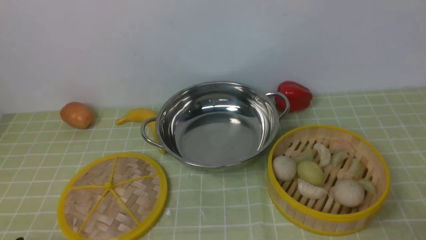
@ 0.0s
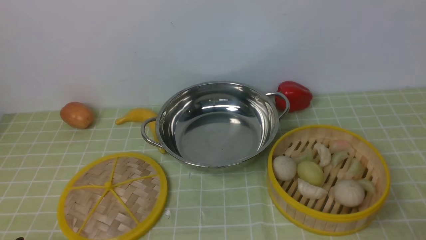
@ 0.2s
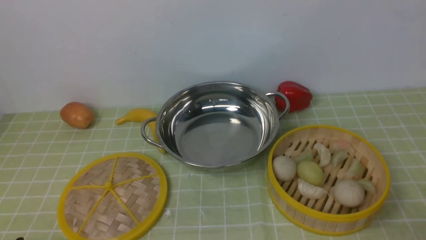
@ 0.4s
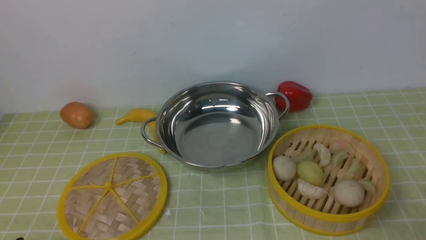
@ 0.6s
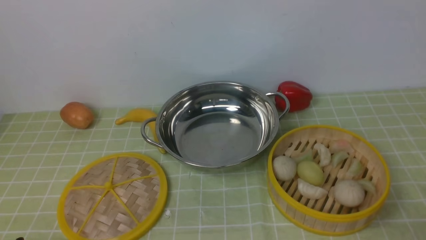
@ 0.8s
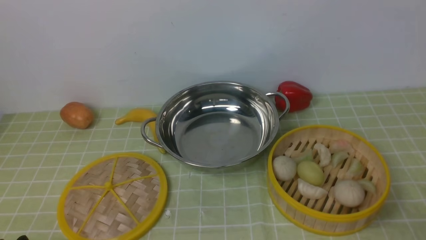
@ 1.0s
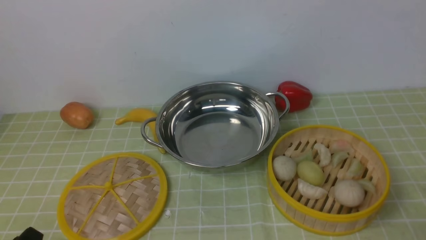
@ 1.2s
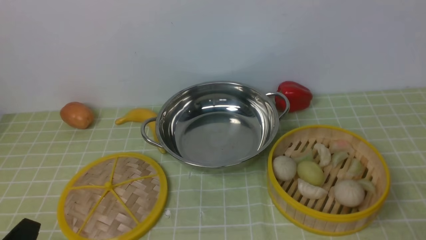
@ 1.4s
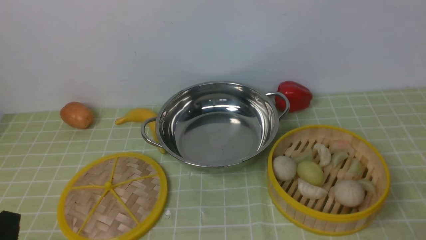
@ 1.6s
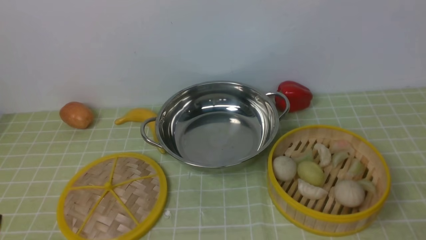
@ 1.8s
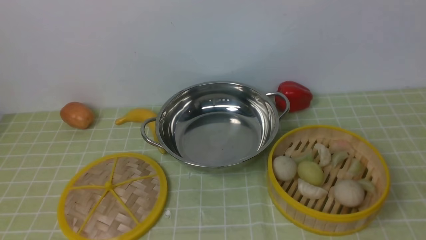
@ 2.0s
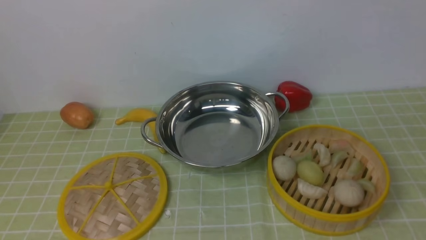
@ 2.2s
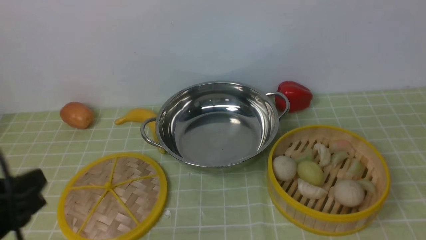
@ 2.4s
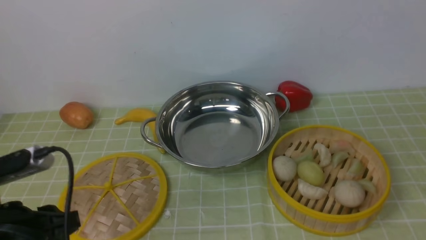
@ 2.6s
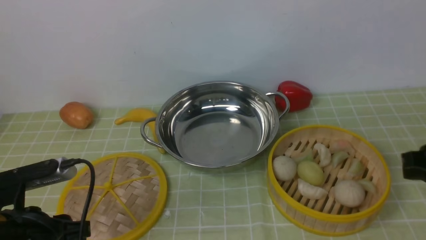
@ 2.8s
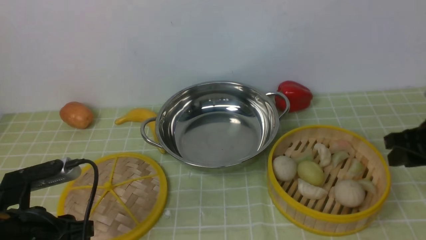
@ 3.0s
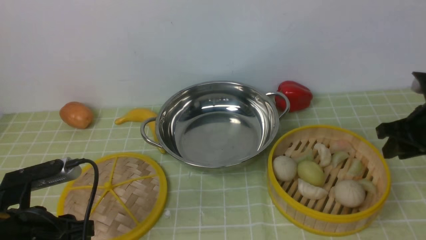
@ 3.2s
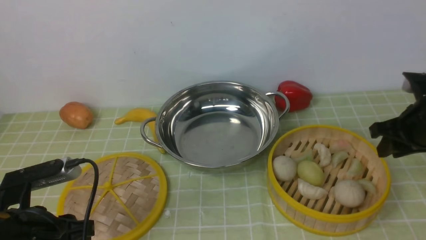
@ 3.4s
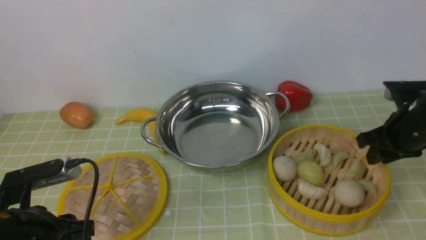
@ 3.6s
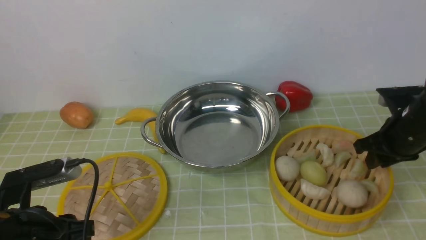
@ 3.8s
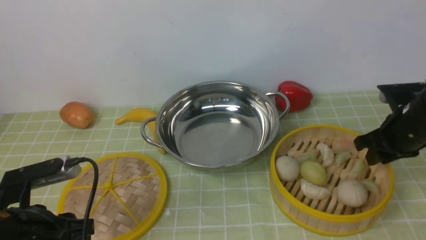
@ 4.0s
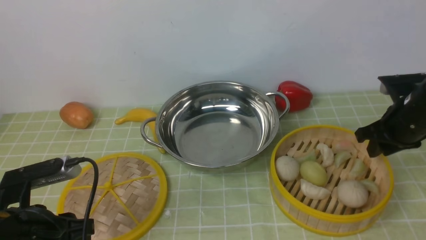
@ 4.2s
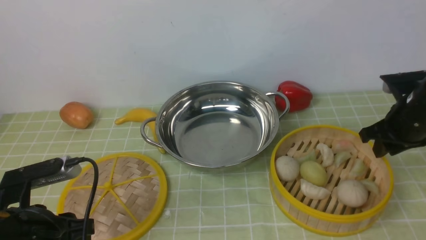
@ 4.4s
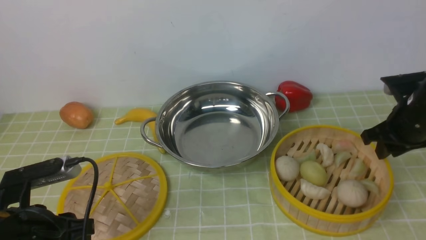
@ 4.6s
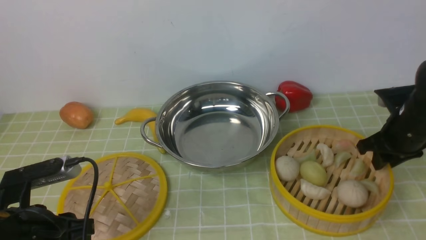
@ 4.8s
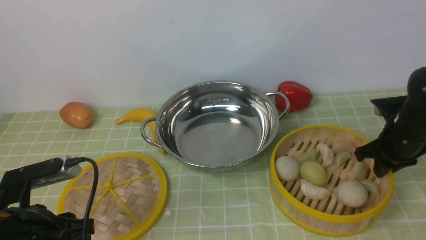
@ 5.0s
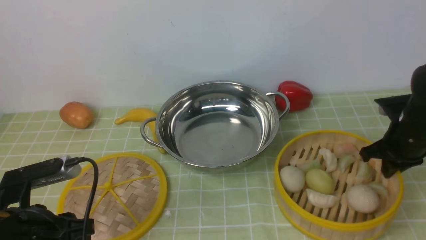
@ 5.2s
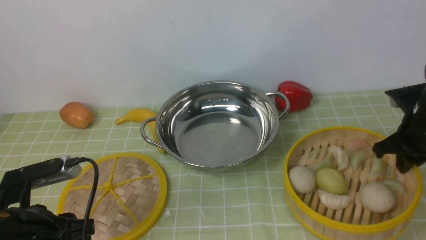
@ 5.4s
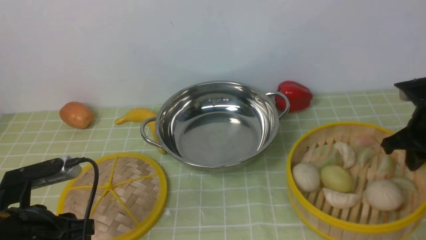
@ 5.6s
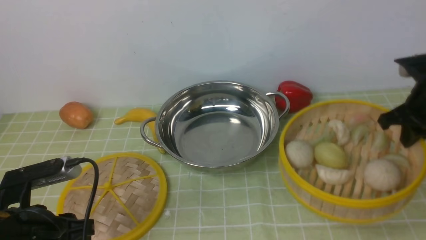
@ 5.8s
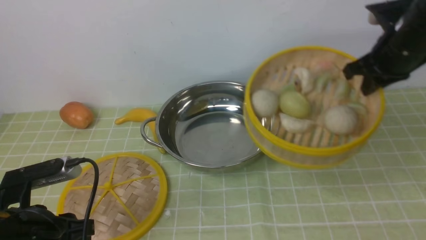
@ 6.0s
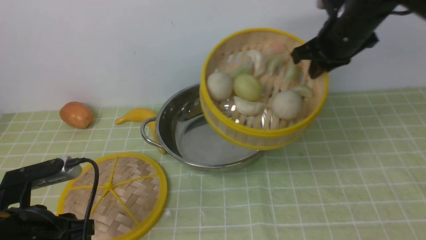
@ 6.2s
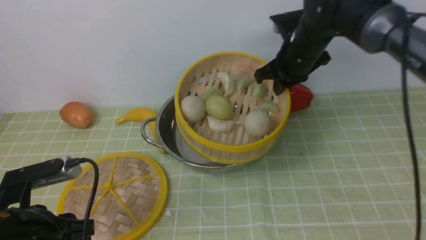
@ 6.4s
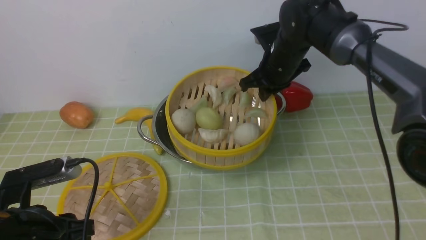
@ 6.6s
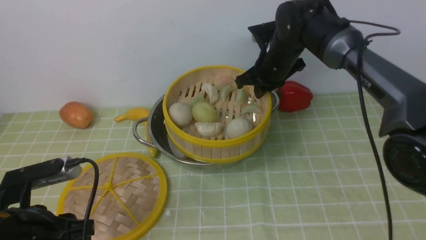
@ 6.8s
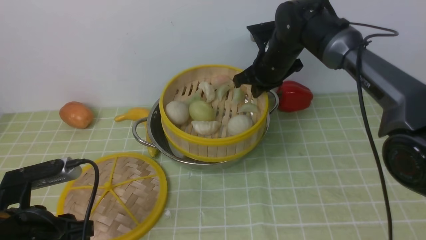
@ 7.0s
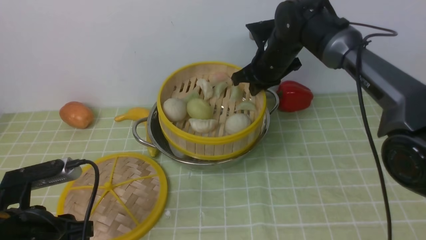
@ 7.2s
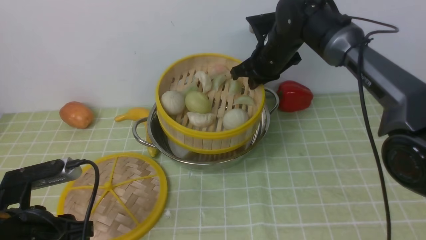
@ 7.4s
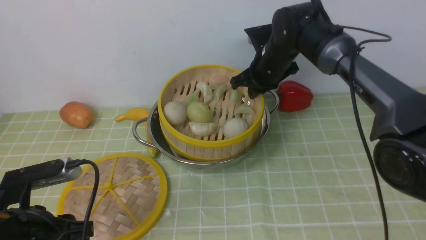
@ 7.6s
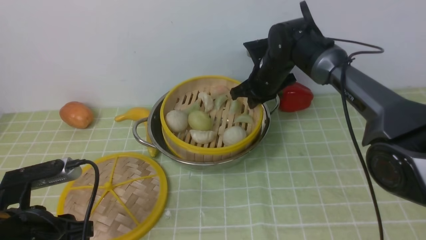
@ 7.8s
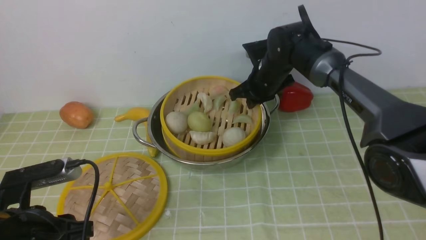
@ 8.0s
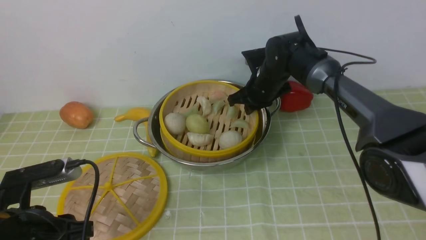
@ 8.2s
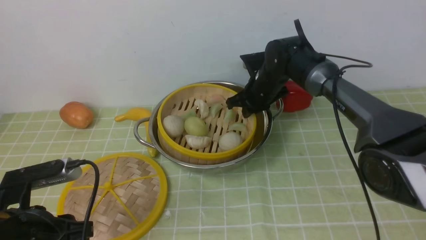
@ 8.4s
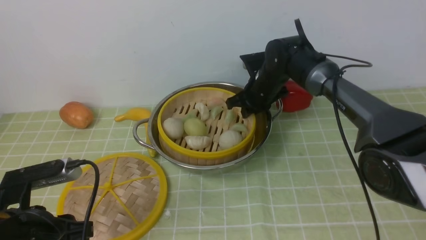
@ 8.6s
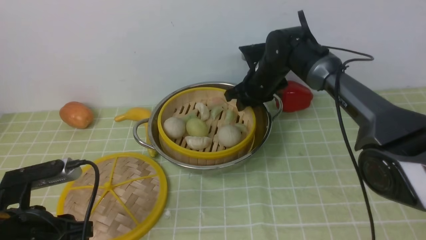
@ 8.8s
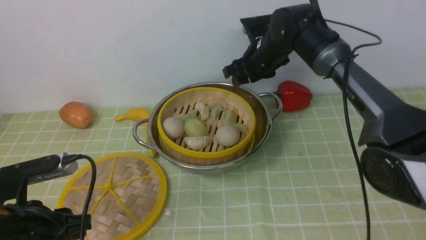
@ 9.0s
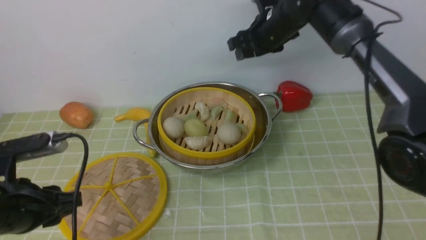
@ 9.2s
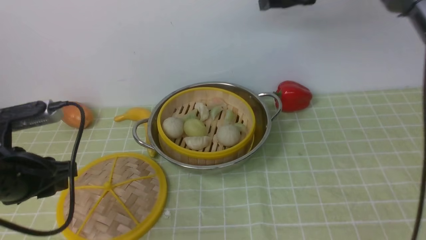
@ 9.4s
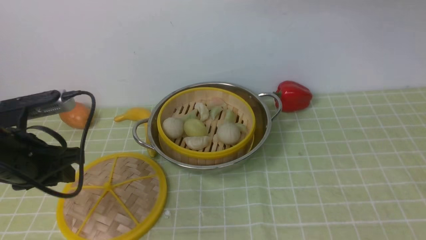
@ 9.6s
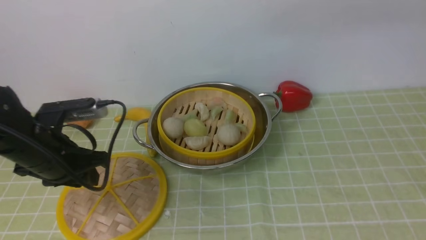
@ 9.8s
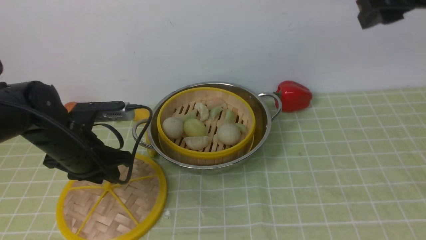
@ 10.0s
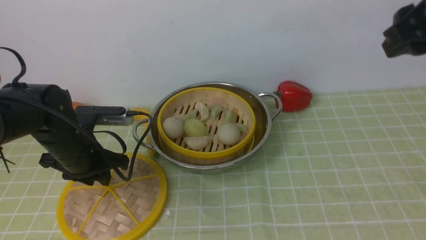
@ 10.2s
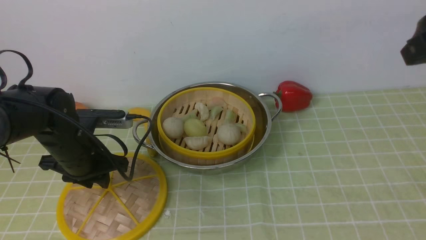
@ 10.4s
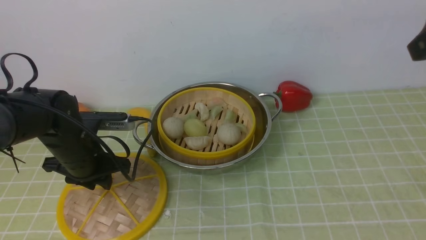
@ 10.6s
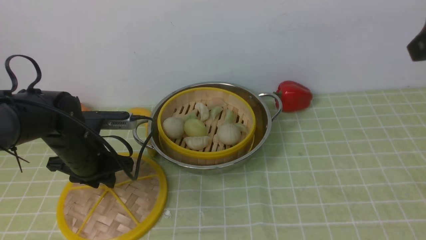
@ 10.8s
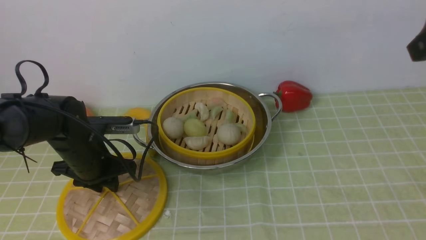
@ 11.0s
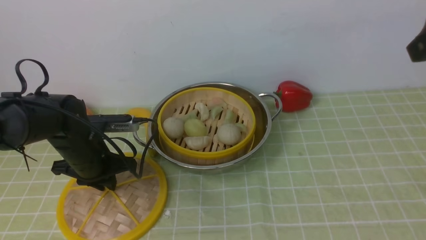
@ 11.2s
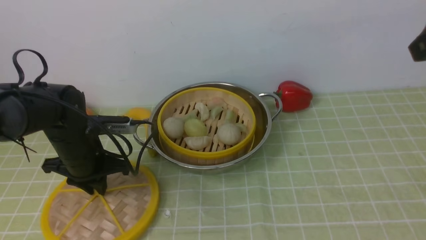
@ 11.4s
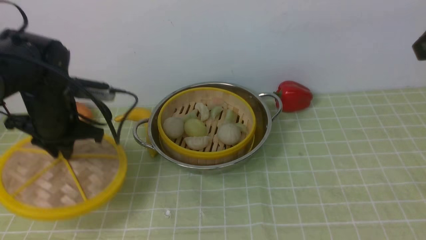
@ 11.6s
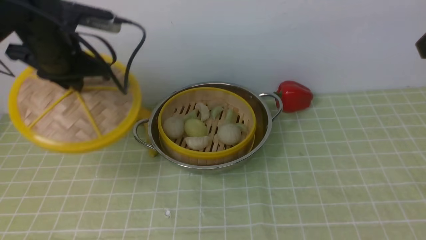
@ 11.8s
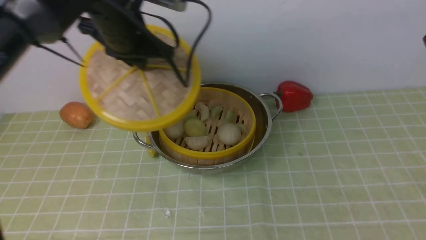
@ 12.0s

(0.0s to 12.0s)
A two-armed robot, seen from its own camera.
Task of the whole recording: place the steamer in the pot on the green tablecloth, and put the lid on the steamer.
Step, 0.0s - 5.4s: use the right arm to lift the steamer closest to it.
Step, 5.6s - 9.2s: use the right arm to put the steamer into the iron steamer pot in the middle.
Step, 9.4s - 11.8s: use the left arm to lift the lid of the steamer.
1.6s - 3.0s: The left gripper is displaced forward by about 10 cm. The right gripper shifts some 20 cm forward.
3.0s - 4.4s: The right gripper moves forward, some 5 cm.
4.4s - 6.0s: The right gripper moves upward and to the left, some 10 cm, and closes up.
6.0s - 7.6s: The right gripper moves to the left, forward and downward, approximately 20 cm.
7.6s - 9.0s: The right gripper goes downward and returns, roughly 5 cm each way, and opens.
9.0s - 10.4s: The right gripper is displaced backward, upward and to the right by approximately 35 cm, while the left gripper goes about 15 cm forward.
10.4s - 12.0s: The left gripper travels upward, to the right and forward by about 20 cm.

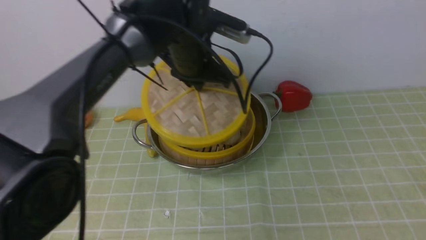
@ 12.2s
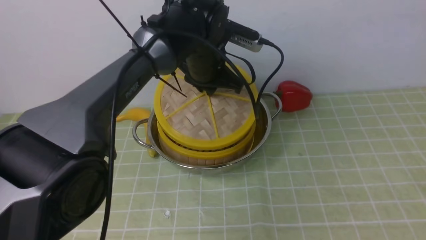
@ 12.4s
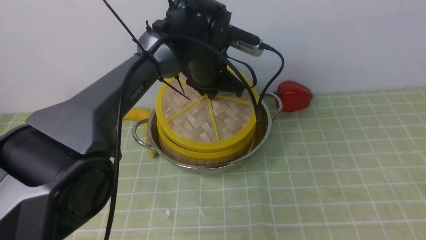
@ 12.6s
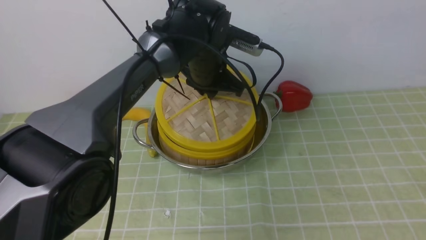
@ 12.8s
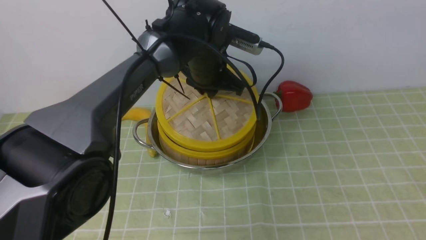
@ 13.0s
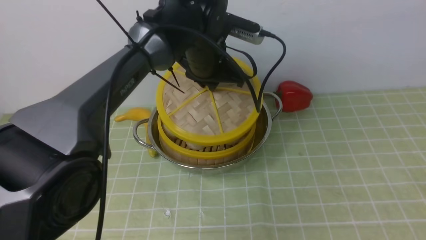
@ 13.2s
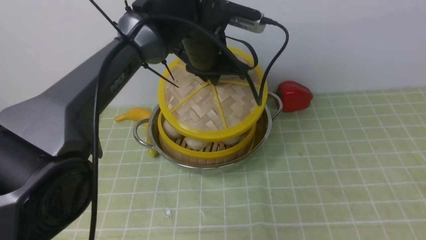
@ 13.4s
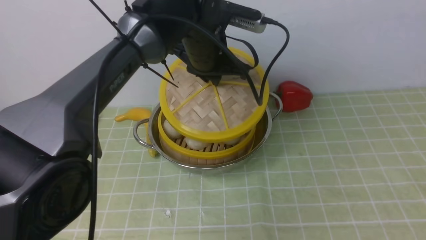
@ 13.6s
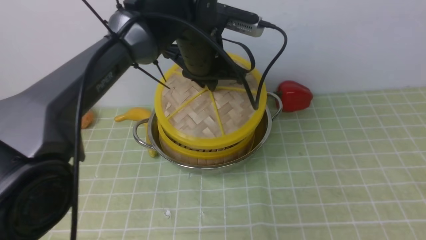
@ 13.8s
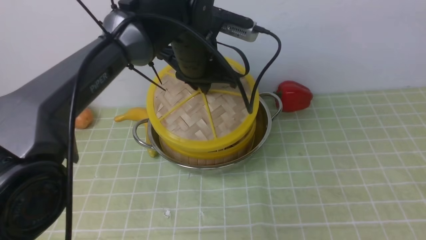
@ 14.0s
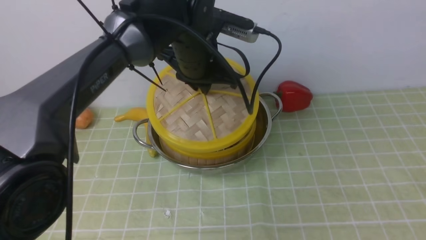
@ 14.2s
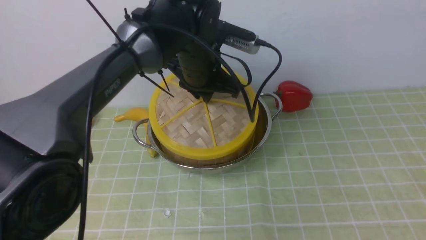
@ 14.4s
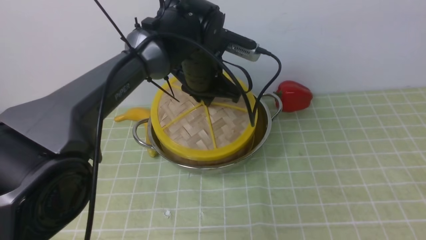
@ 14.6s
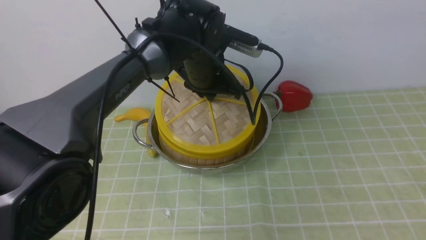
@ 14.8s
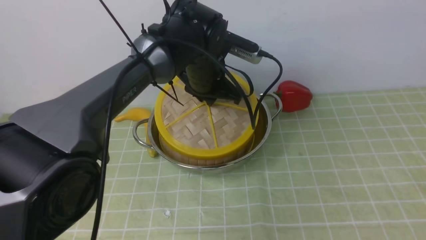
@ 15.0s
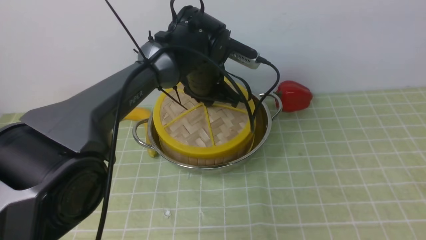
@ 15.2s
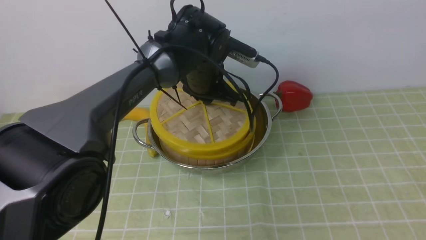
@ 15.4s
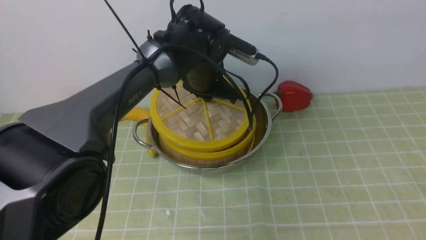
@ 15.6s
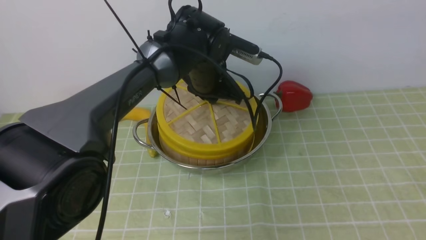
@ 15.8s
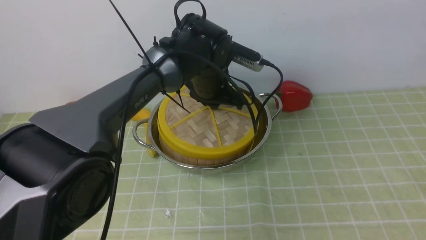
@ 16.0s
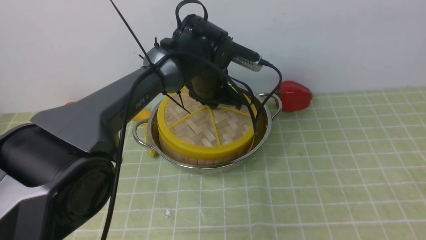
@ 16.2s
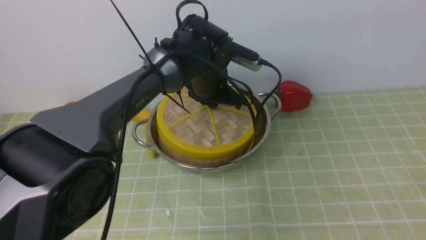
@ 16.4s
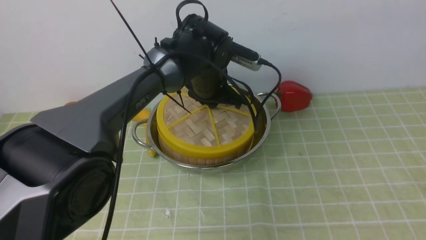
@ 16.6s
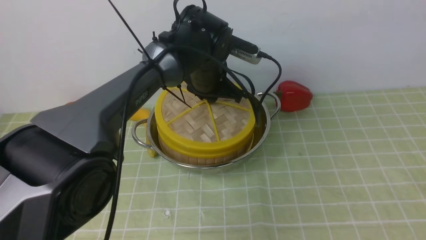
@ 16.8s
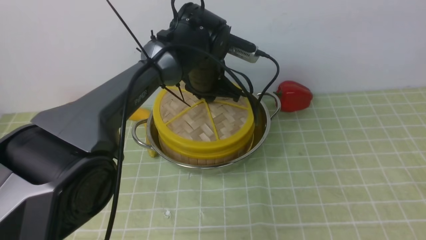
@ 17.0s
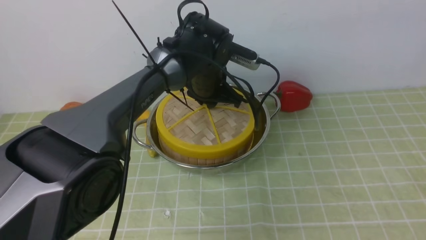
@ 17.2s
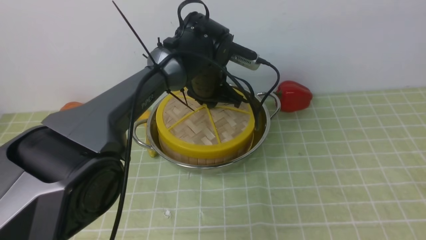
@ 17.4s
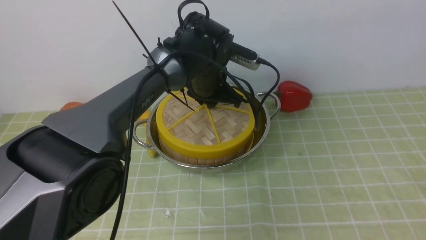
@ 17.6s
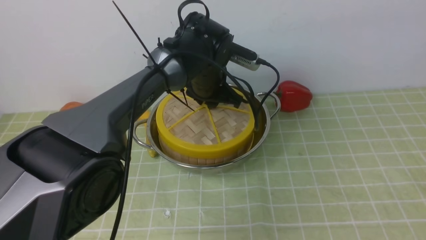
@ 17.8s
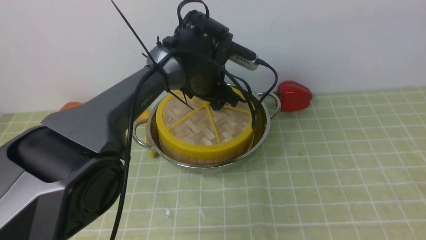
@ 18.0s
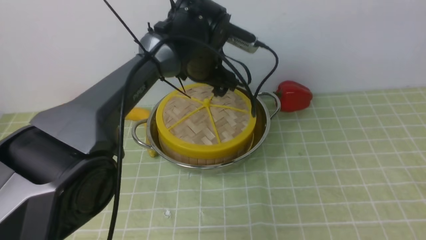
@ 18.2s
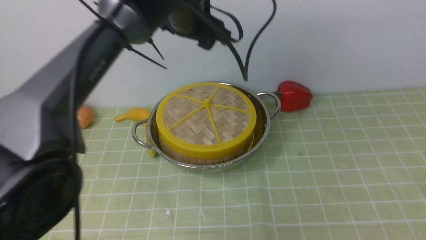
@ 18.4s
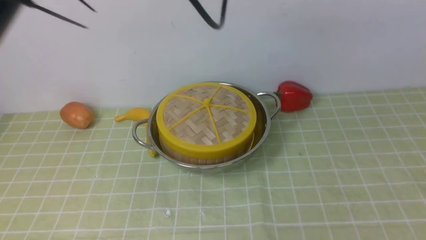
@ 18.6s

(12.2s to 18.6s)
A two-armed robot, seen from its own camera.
Task of the whole recording: place the steamer in the pot on the green tablecloth, and put the lid on the steamer.
Step, 12.2s - 18.4s: use the left arm to place the steamer lid on the steamer.
12.2s - 13.8s: The grippers move only a little.
13.8s - 15.4s: The left gripper travels downward by roughly 5 cm.
15.4s - 17.0s: The grippers move only a little.
17.0s - 18.6s: The right gripper heads backward, covering roughly 5 cm; the left gripper heads upward and backward, covering about 25 cm, and opens, then closes once more.
